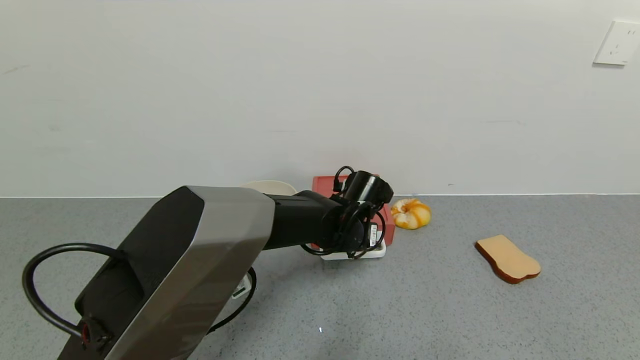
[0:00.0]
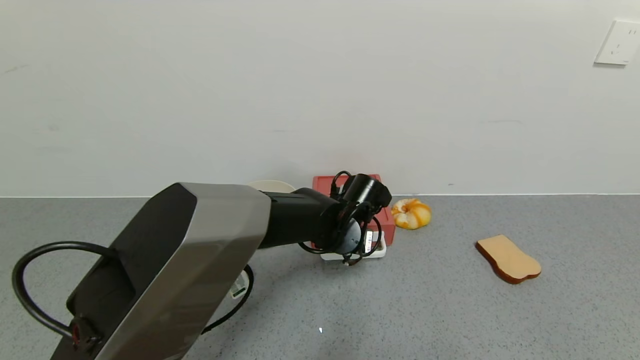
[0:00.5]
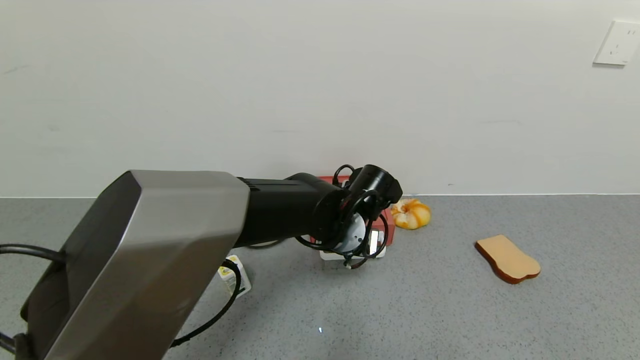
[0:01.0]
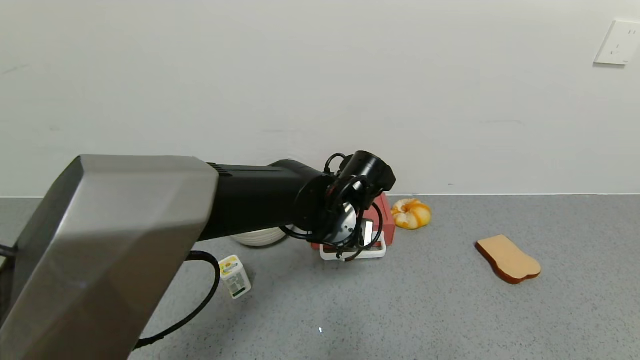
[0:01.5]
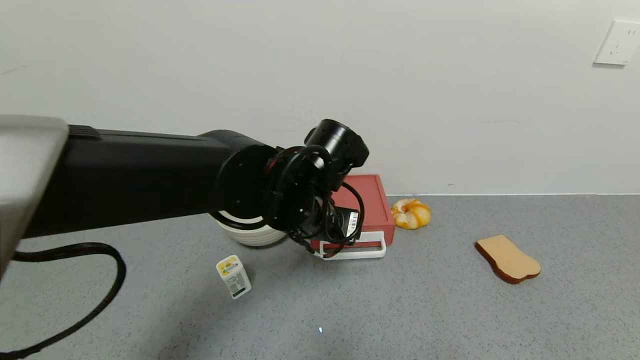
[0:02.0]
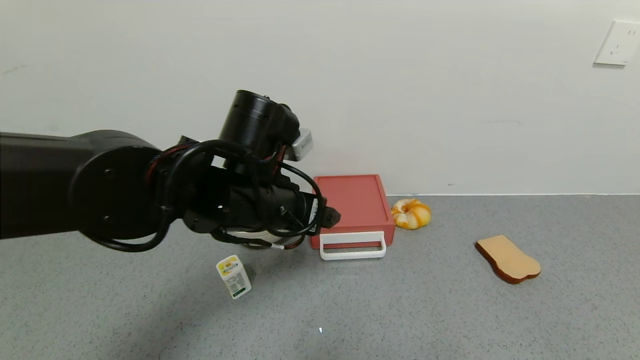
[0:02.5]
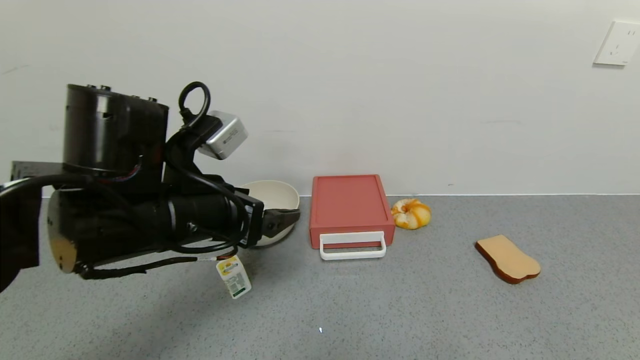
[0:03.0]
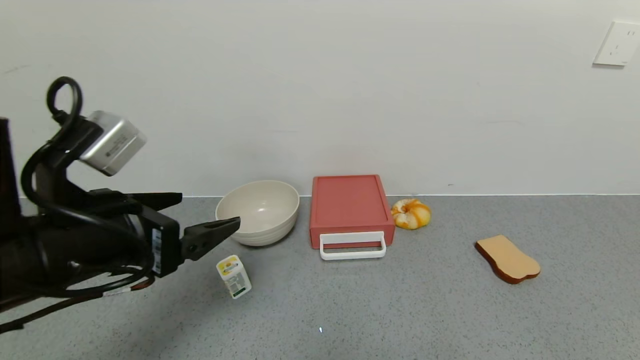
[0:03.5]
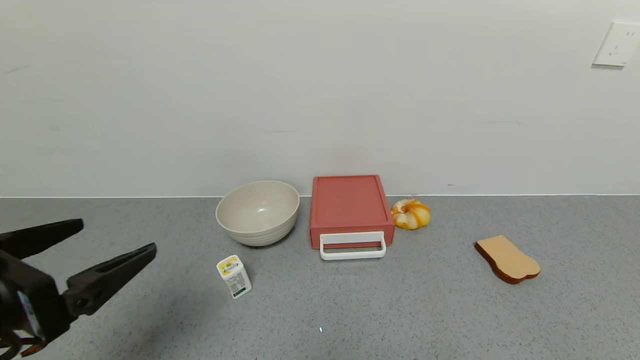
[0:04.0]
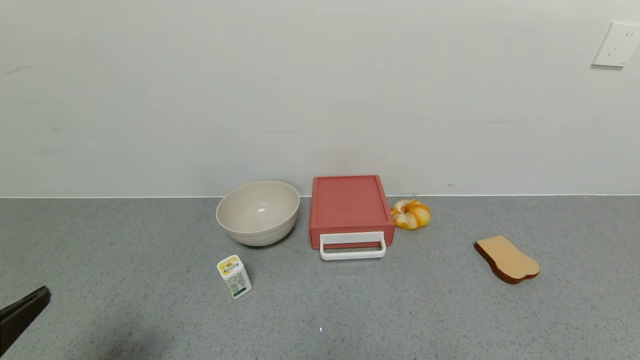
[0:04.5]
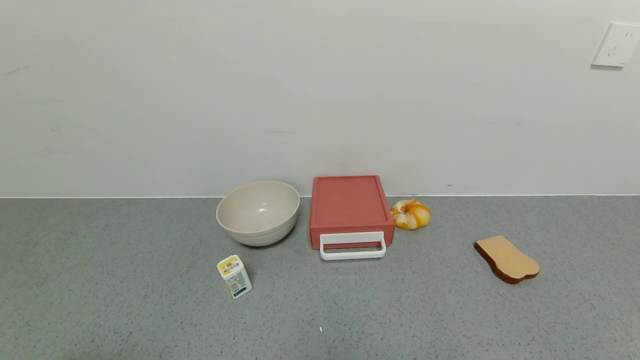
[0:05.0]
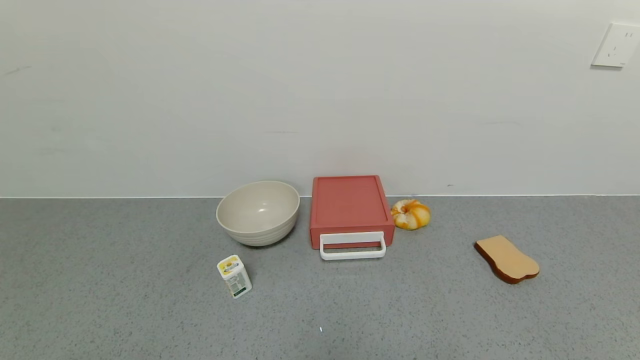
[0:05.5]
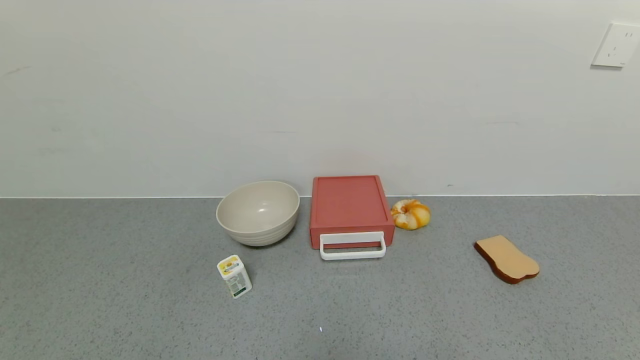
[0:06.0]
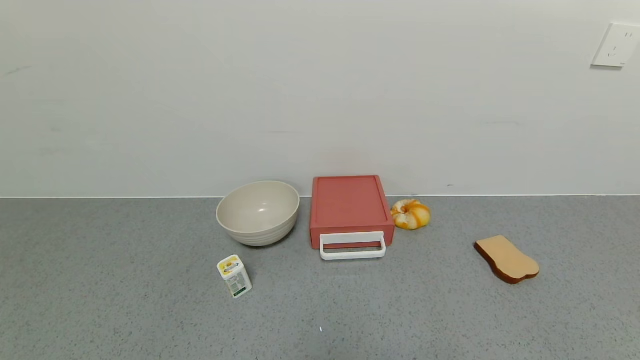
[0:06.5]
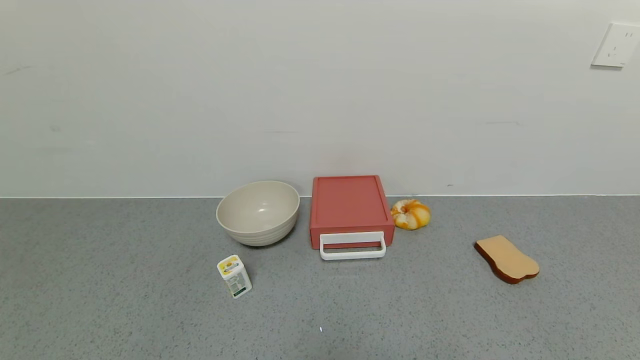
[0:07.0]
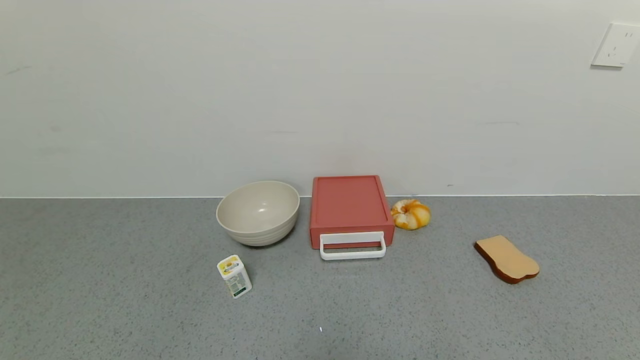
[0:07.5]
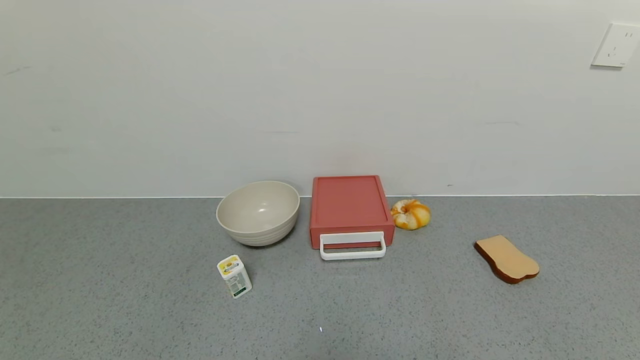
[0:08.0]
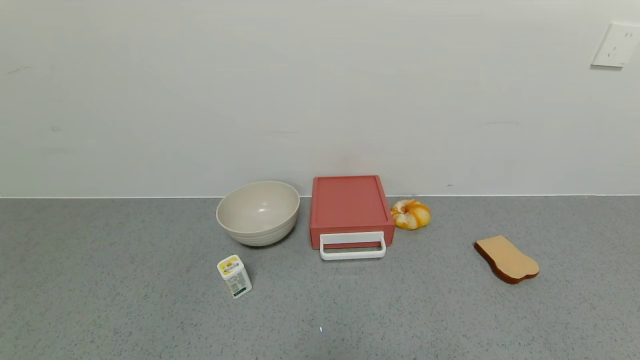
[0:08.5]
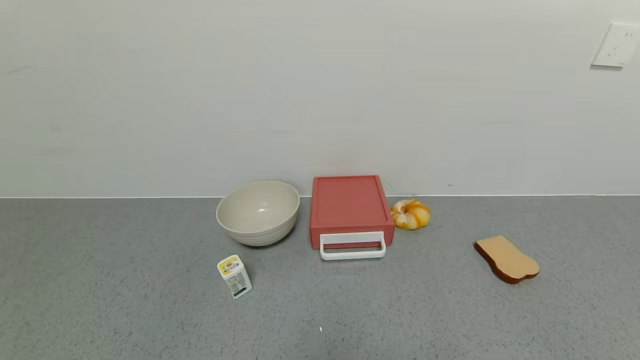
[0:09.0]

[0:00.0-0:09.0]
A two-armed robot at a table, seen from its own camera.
Task of the whole recording: use the gripper to open the drawer and close the red drawer.
0:00.0 to 0:02.0: The left gripper moves upward, backward and to the left, approximately 15 cm, and opens its fingers.
0:02.0 to 0:04.5: The left gripper travels backward and to the left by some 35 cm.
0:04.5 to 0:07.0: The left gripper is displaced downward and backward by roughly 15 cm.
